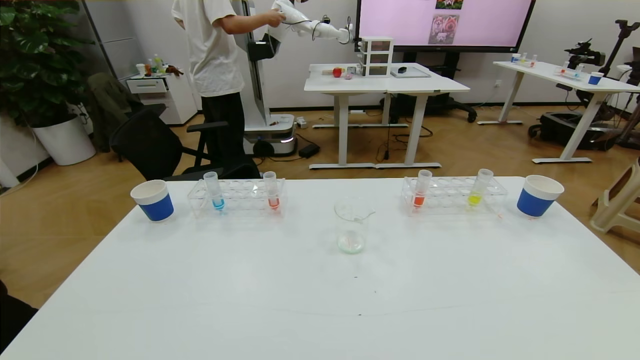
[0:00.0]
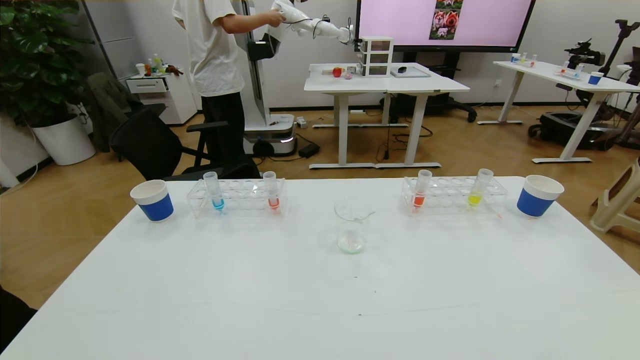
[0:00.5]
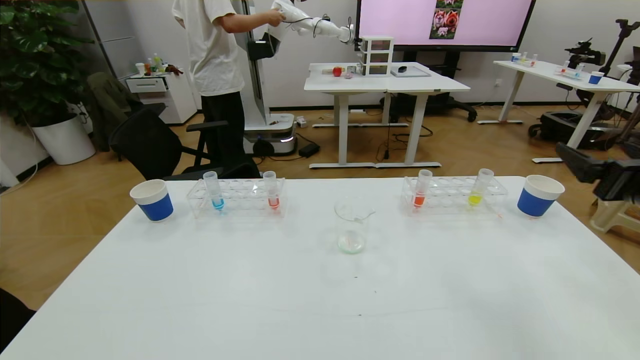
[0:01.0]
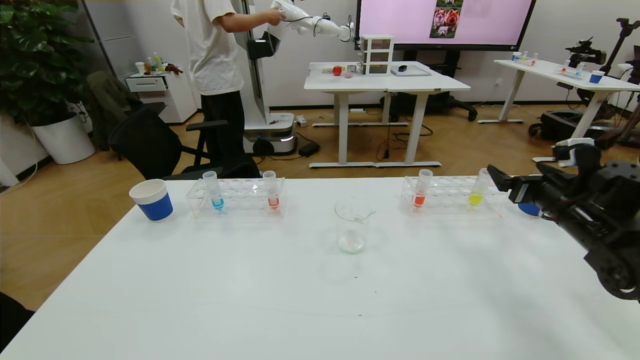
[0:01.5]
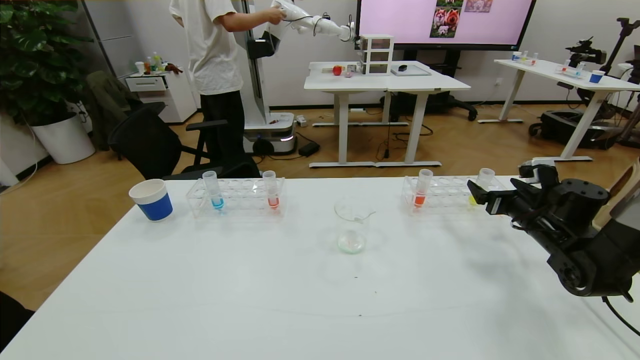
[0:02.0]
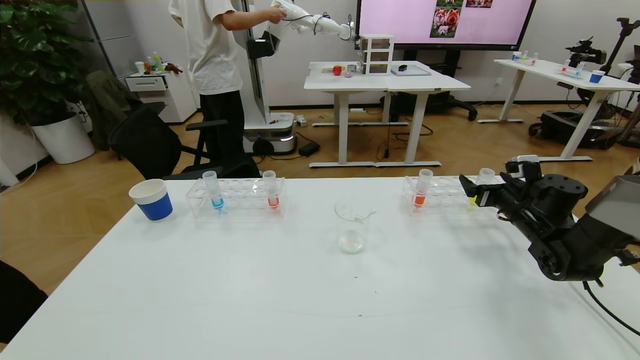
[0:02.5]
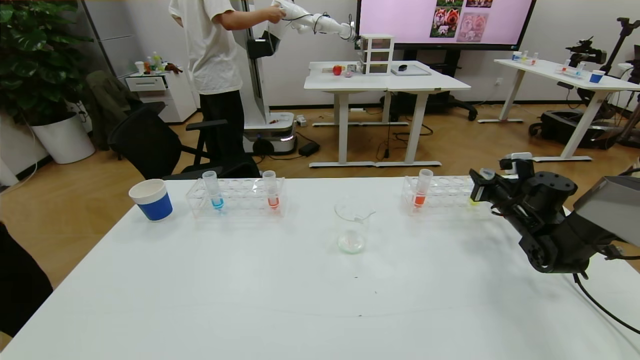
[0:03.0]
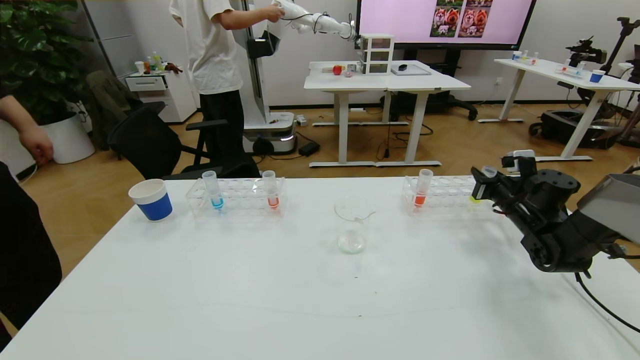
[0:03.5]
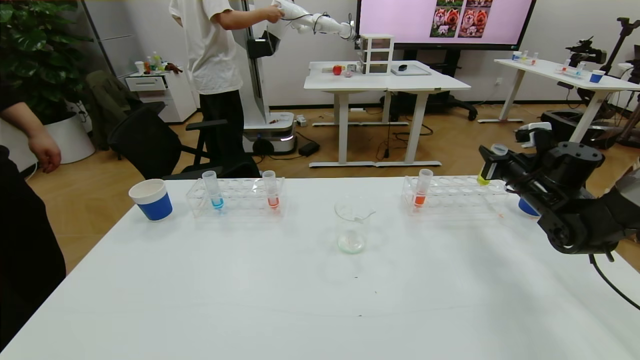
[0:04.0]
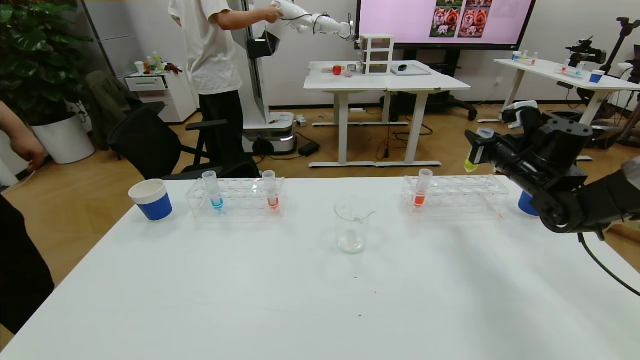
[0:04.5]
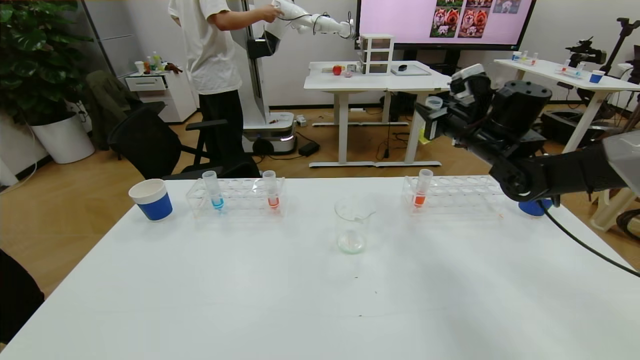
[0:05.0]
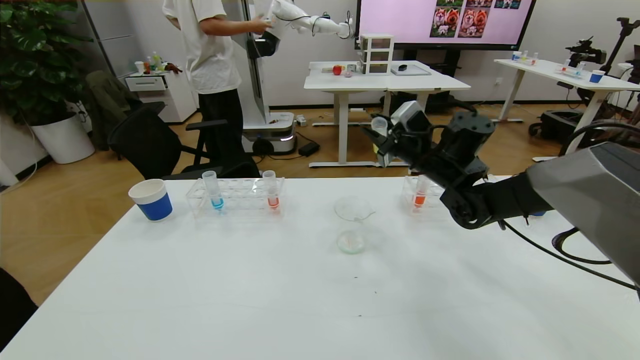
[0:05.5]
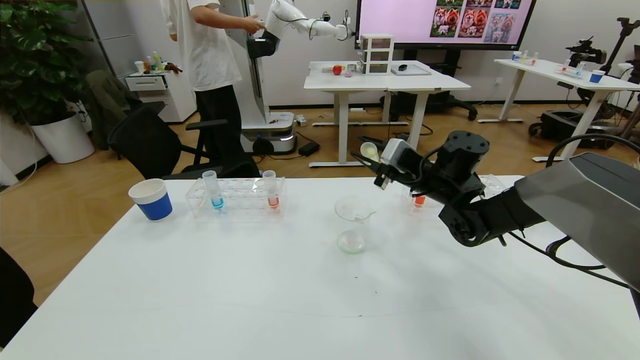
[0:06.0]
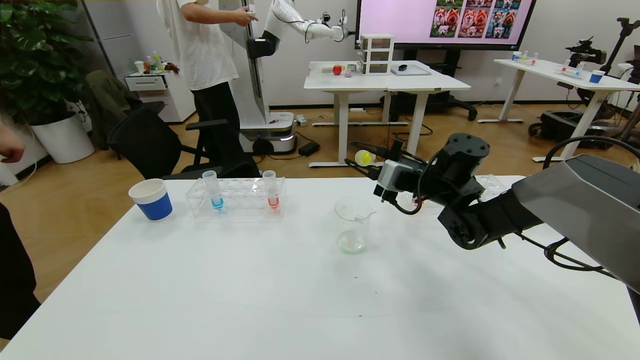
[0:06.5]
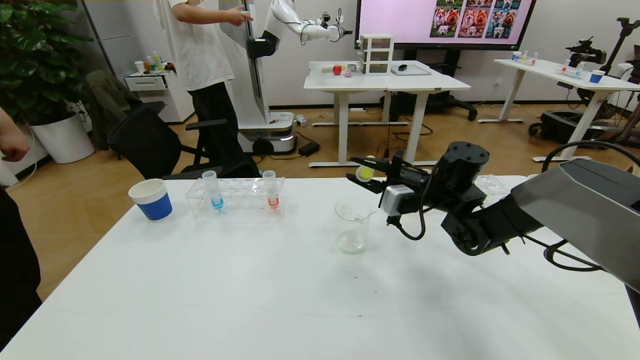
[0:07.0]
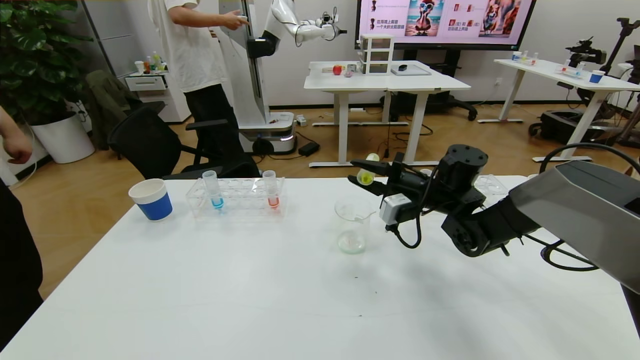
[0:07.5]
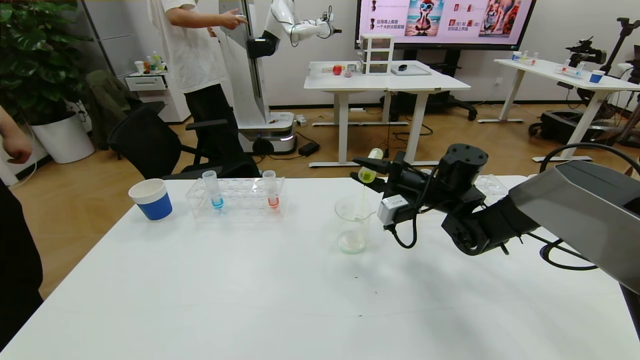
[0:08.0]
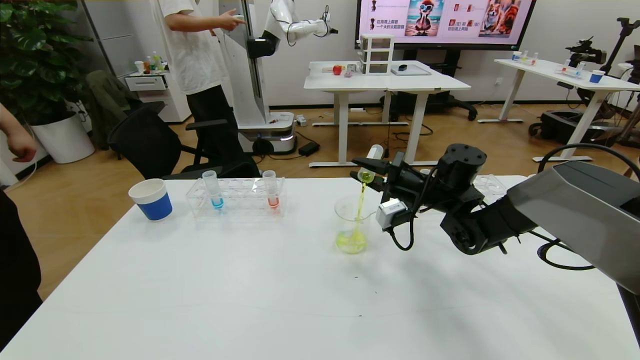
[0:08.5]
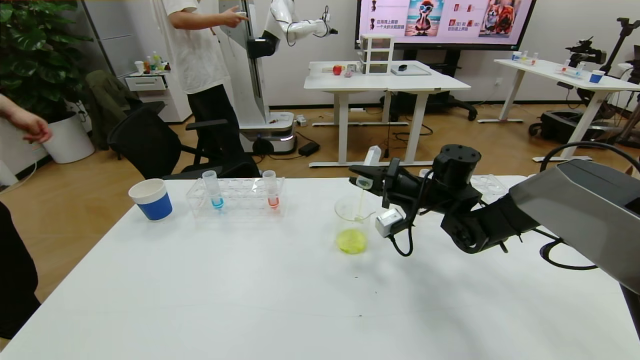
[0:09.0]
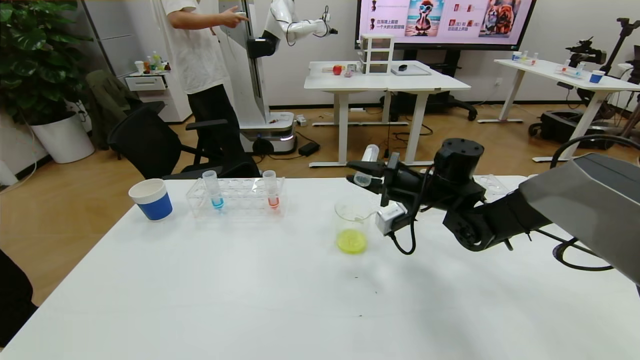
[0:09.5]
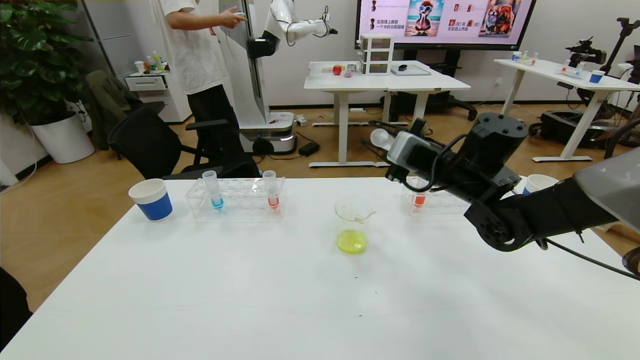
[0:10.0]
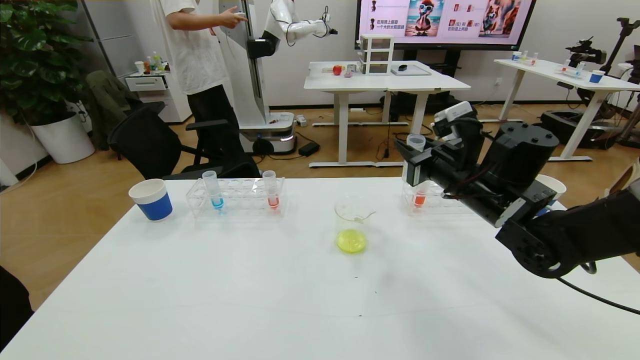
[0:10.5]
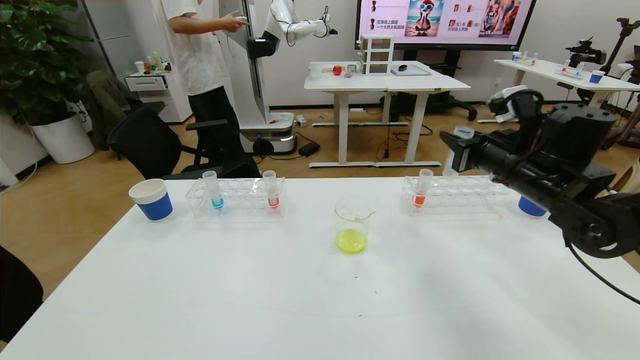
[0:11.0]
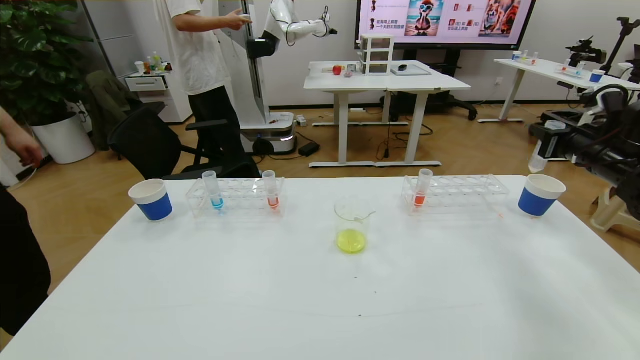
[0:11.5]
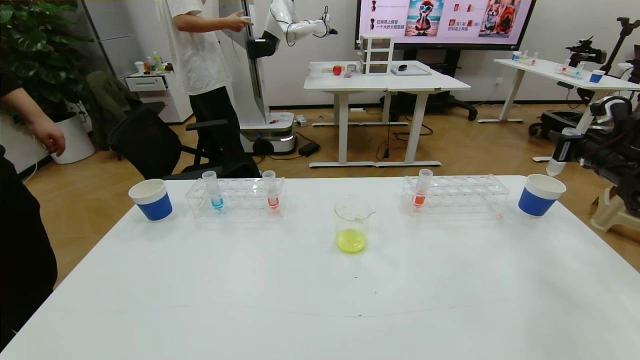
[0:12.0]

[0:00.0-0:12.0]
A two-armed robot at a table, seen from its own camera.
Task of the whole recording: pick up the test tube with yellow pigment and the test tube with blue pigment by grippers and pour them into the beaker.
0:00.0 to 0:02.0: The right gripper moves forward, about 40 cm.
0:02.0 to 0:04.0: The right gripper travels upward by about 5 cm, and closes its fingers.
0:04.0 to 0:06.0: The right gripper is displaced to the left by some 20 cm.
0:08.0 to 0:10.0: The right gripper travels upward by roughly 5 cm.
0:10.0 to 0:12.0: The right gripper moves to the right, some 30 cm.

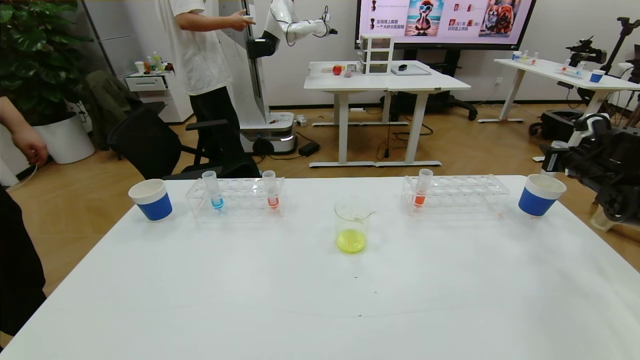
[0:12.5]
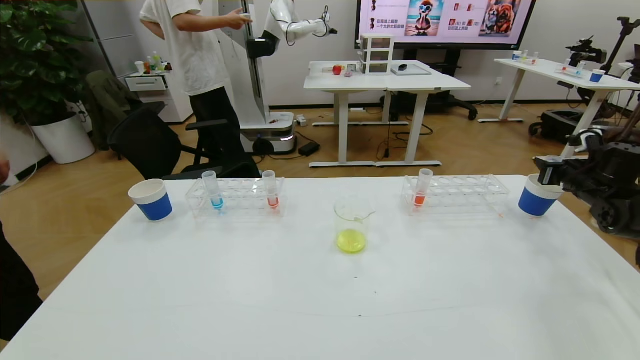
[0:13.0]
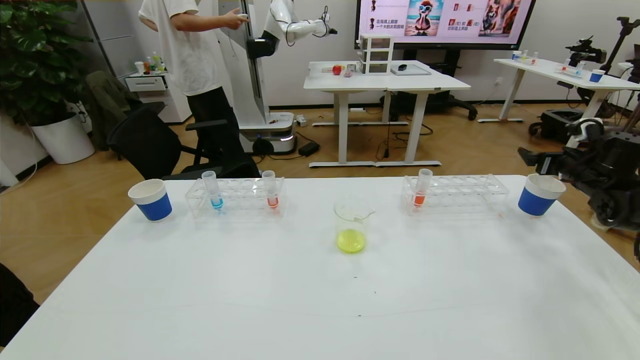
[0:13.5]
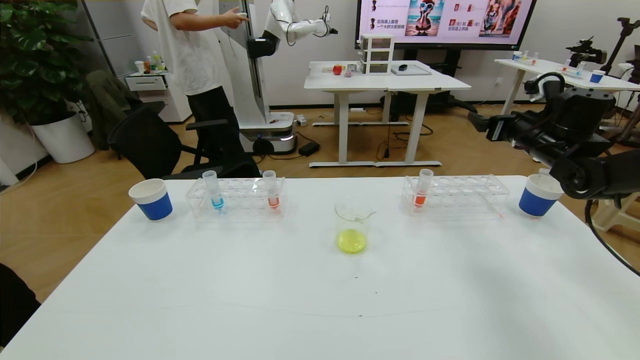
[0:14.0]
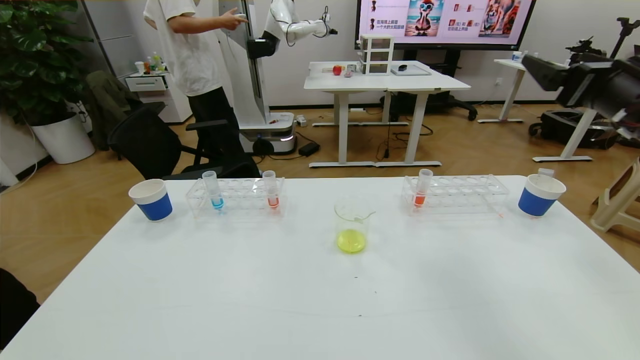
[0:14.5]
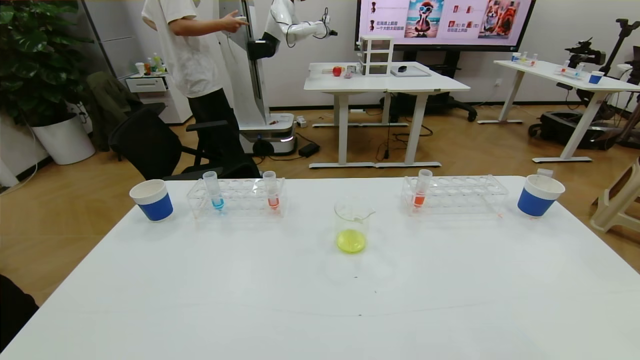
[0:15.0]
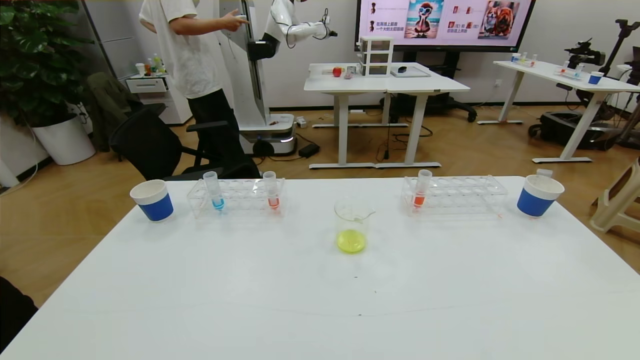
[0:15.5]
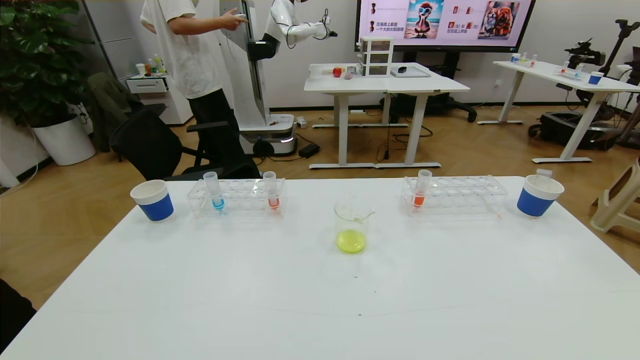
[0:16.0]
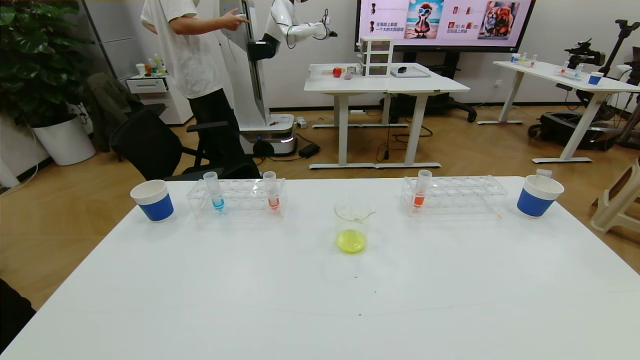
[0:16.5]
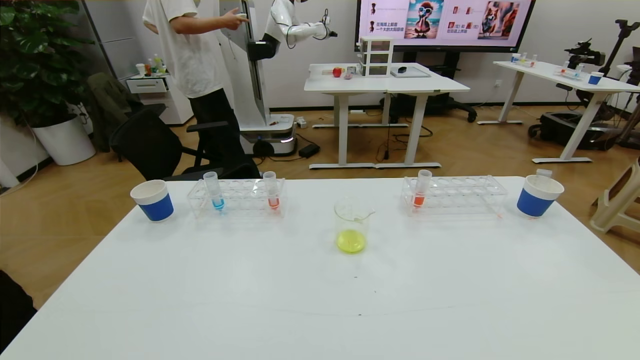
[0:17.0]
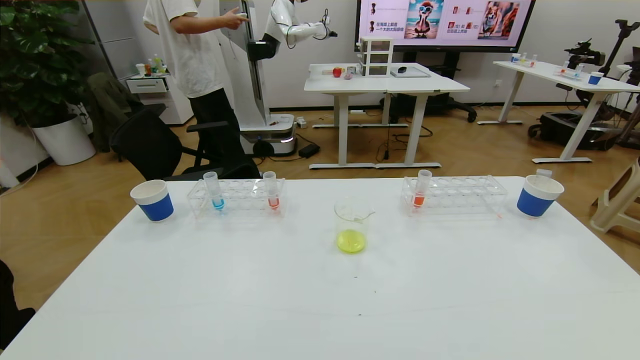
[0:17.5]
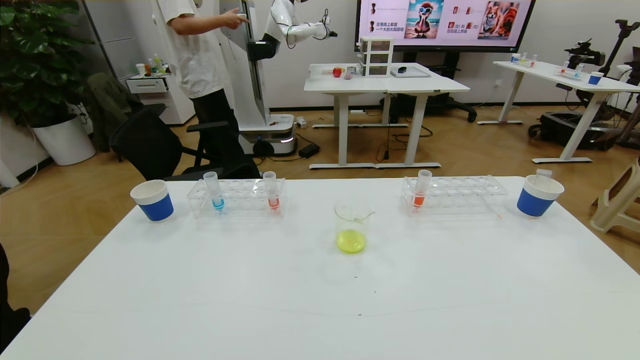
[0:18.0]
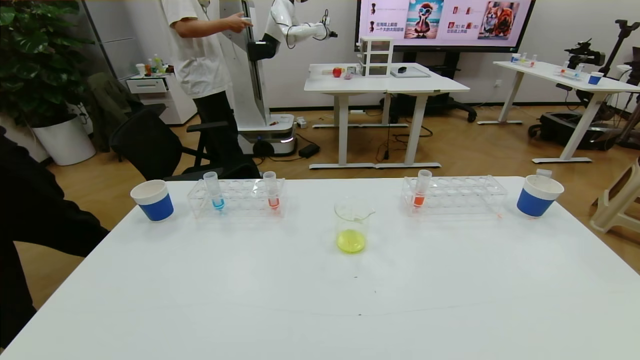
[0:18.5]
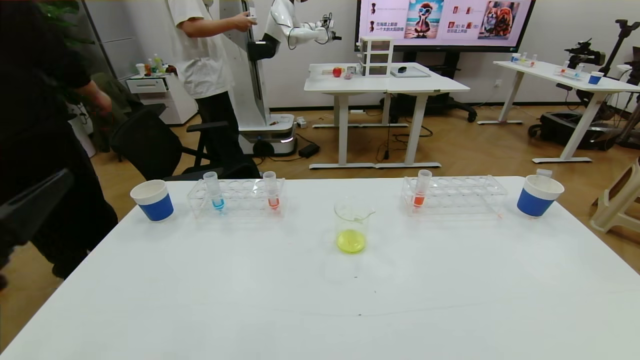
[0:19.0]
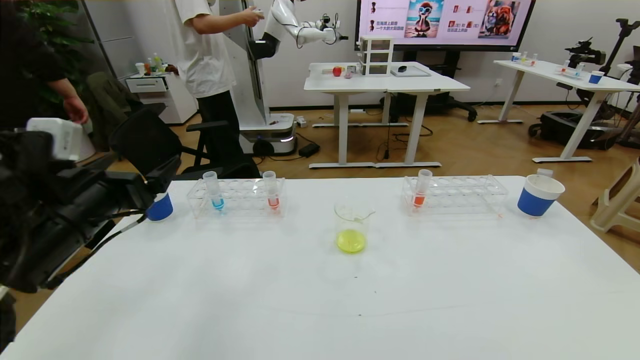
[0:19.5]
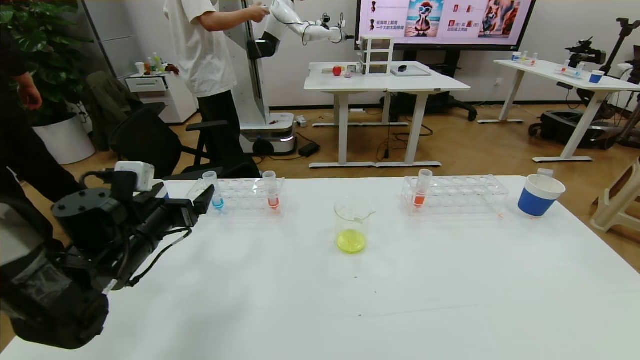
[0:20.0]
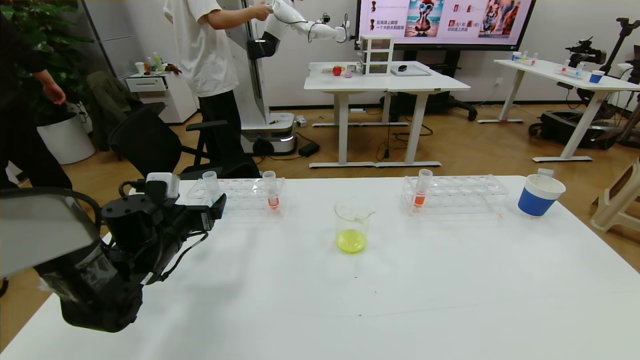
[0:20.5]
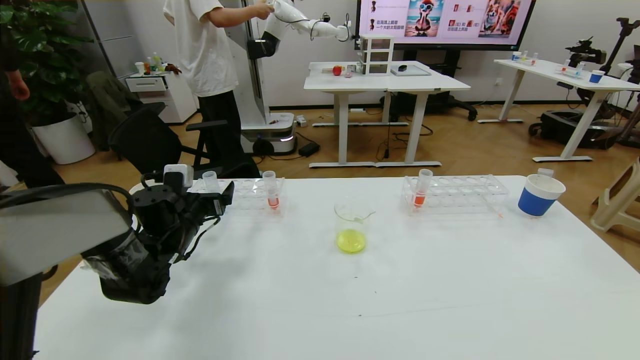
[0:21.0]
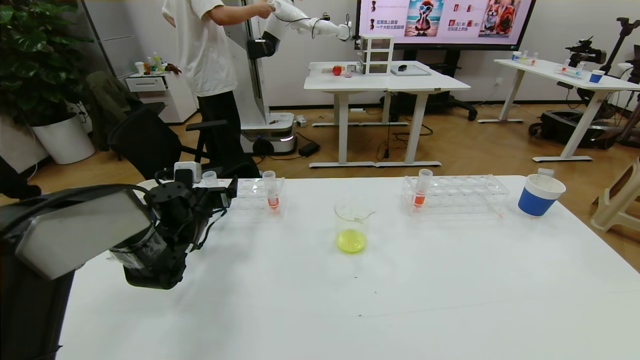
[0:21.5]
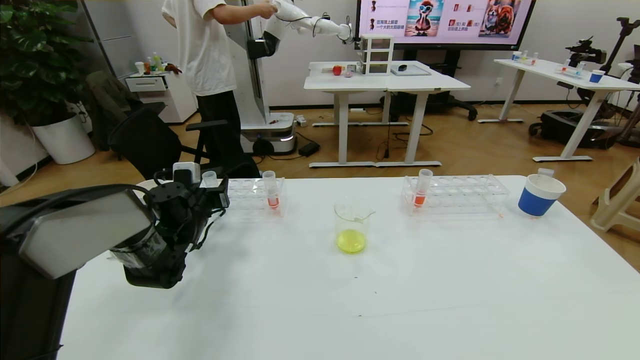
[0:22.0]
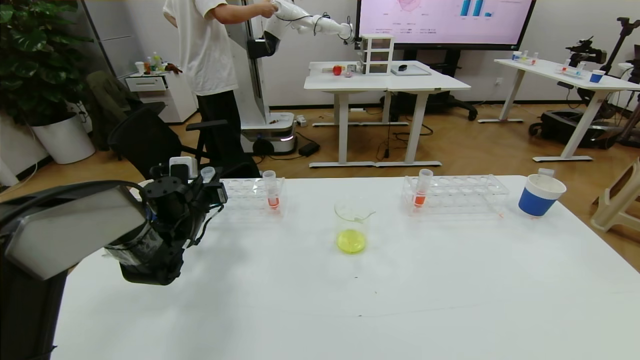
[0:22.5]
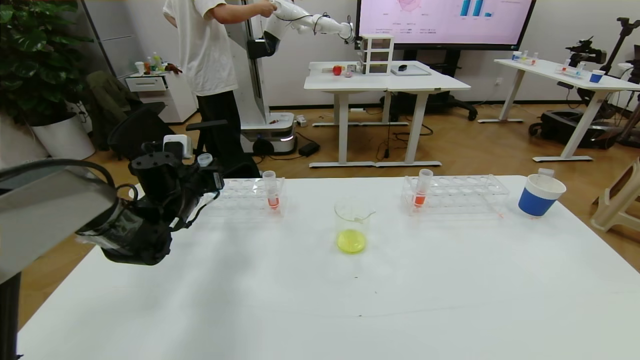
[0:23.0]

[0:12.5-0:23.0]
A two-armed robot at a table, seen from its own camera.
Task of the whole recording: pick up the test tube with yellow pigment and the test tube with blue pigment by grippers and pour them into the beaker.
Step, 0:12.5 to 0:17.0: Pour the yellow reagent into the graduated cylinder and place the test tube into the paper cup.
0:12.5 to 0:14.5: The right gripper shifts approximately 30 cm to the left, upward and backward, and opens up.
0:14.5 to 0:16.5: The right gripper moves backward and downward, roughly 35 cm.
0:16.5 to 0:19.0: The left gripper goes approximately 20 cm upward and forward.
0:19.0 to 0:21.0: The left gripper travels forward and downward by some 30 cm.
0:21.0 to 0:23.0: The left gripper shifts about 5 cm upward, and closes its fingers.
